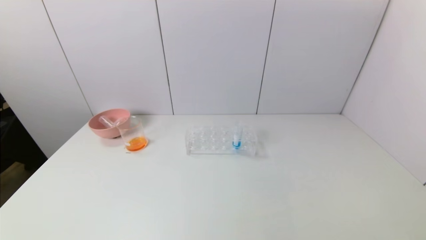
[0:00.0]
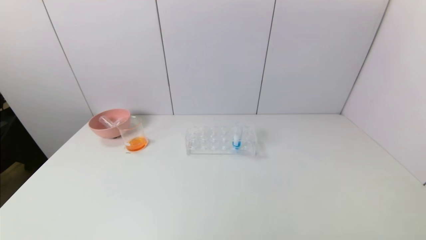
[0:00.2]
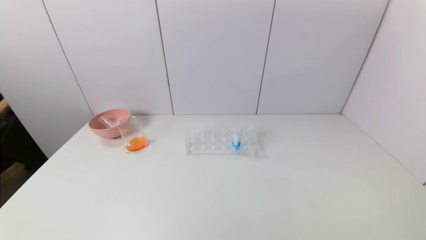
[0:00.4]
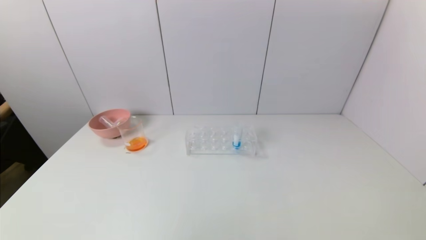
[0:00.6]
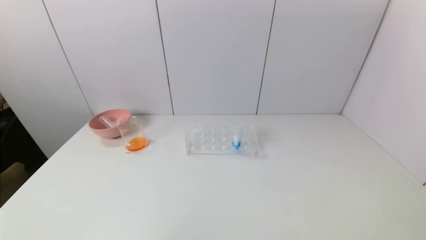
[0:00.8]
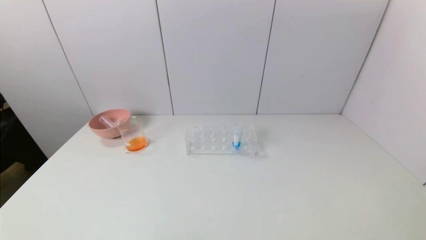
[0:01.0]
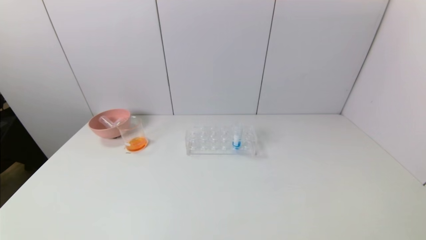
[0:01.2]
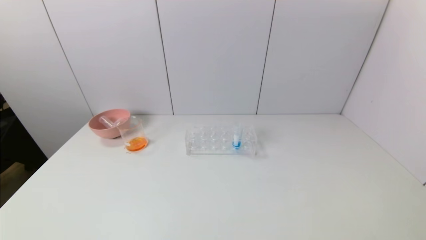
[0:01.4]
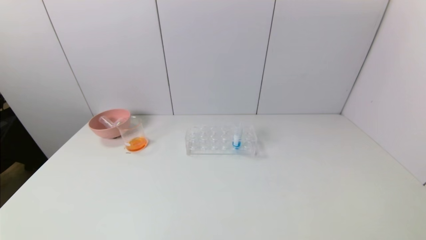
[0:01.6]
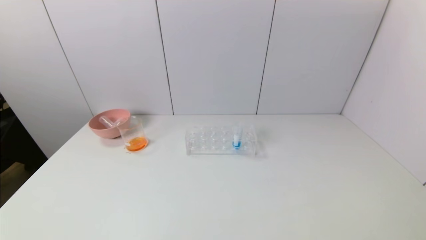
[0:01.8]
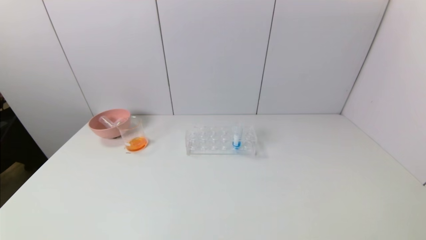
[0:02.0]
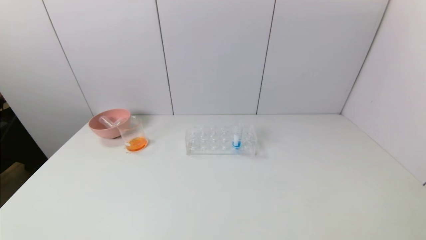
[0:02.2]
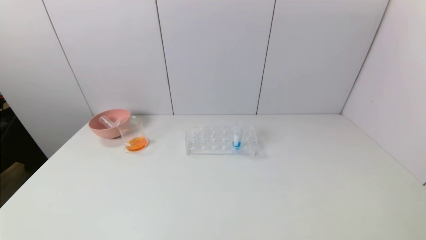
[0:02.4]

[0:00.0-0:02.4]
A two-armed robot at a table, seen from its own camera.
Task of the whole recording: pick up the test tube with yellow pigment and the test tube with red pigment by grippers and pour them into the beaker.
0:01.2 to 0:02.4: The two grippers keep their place.

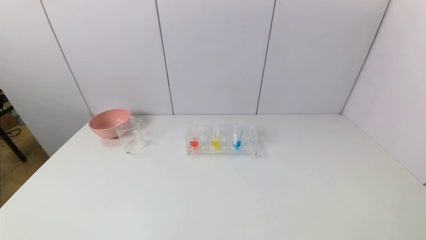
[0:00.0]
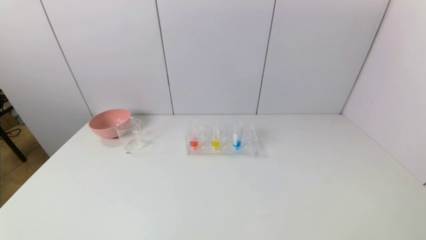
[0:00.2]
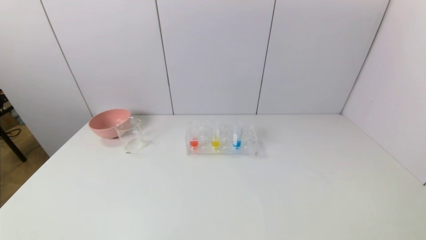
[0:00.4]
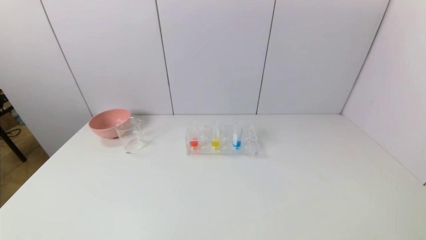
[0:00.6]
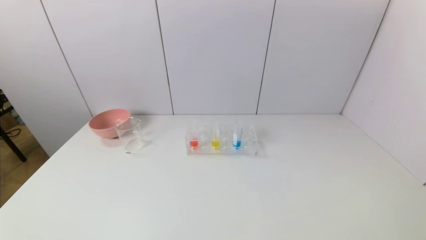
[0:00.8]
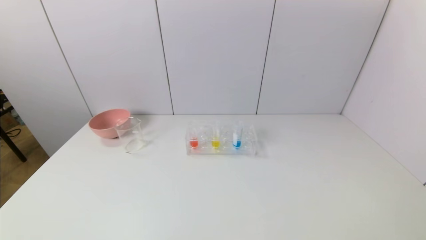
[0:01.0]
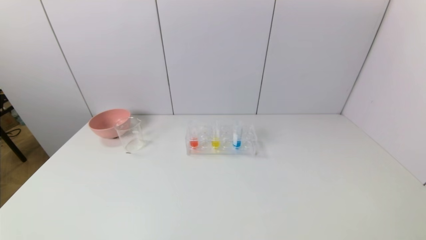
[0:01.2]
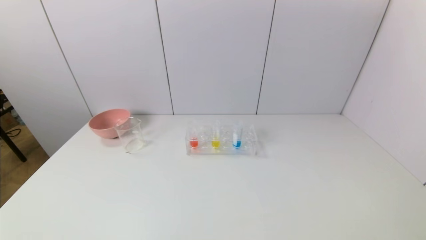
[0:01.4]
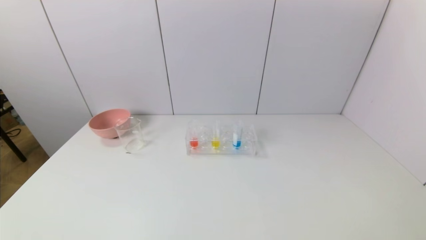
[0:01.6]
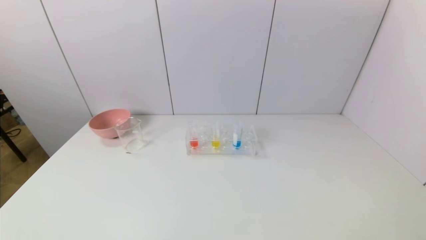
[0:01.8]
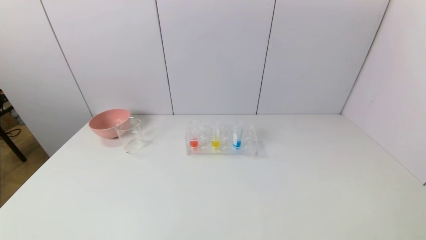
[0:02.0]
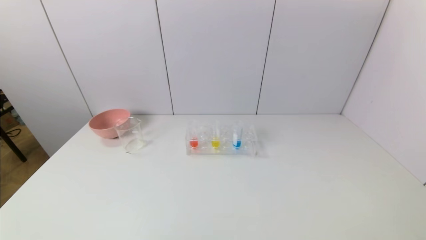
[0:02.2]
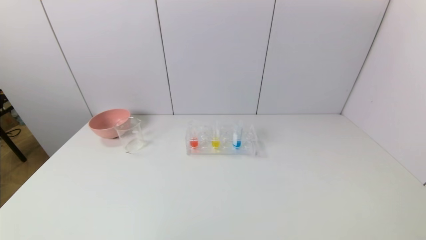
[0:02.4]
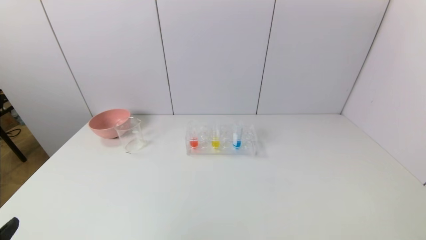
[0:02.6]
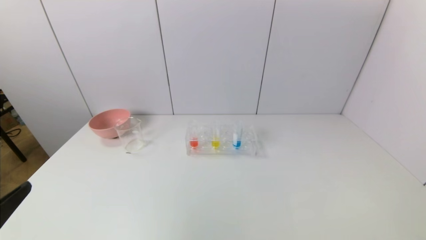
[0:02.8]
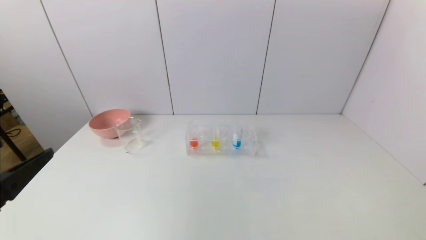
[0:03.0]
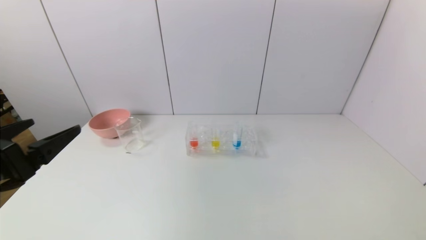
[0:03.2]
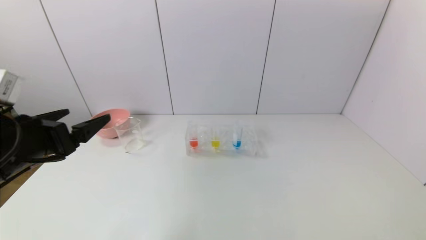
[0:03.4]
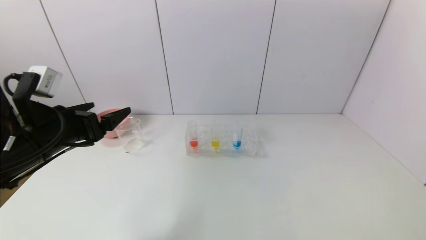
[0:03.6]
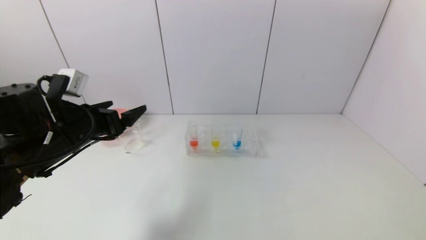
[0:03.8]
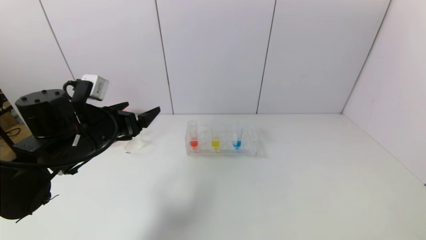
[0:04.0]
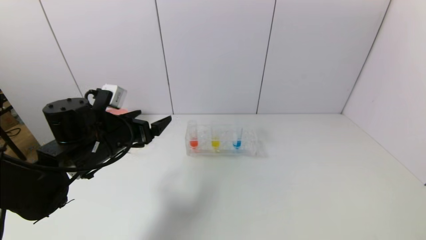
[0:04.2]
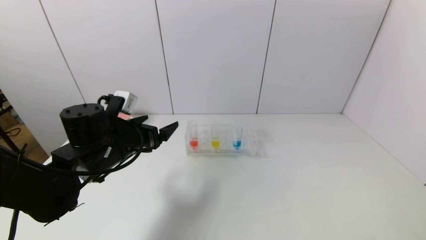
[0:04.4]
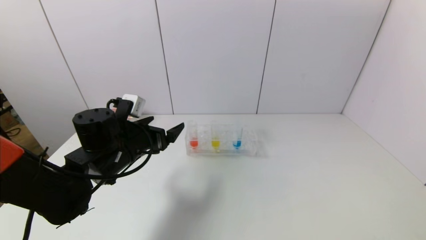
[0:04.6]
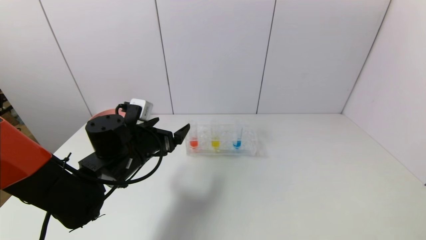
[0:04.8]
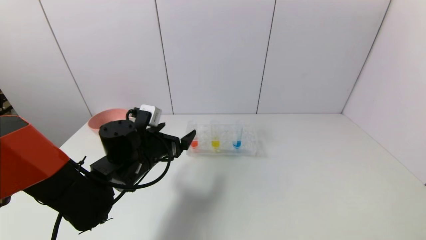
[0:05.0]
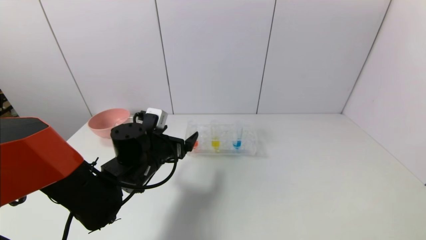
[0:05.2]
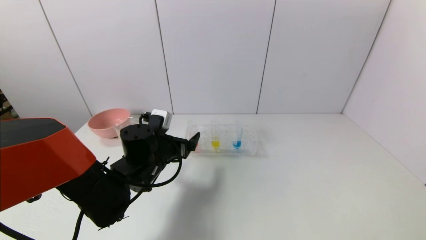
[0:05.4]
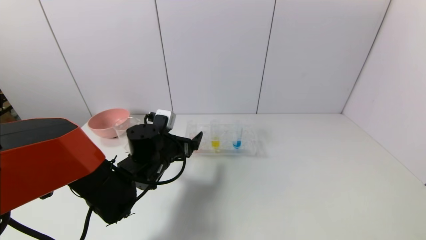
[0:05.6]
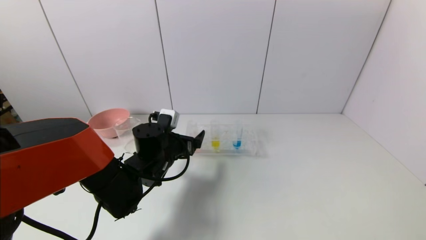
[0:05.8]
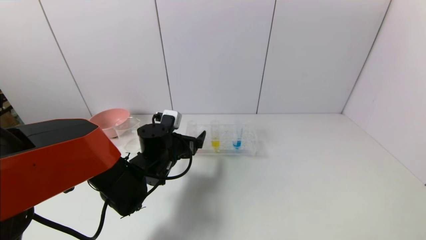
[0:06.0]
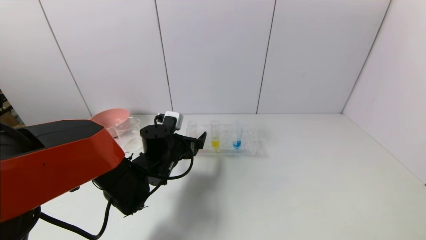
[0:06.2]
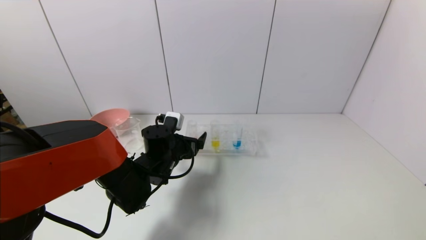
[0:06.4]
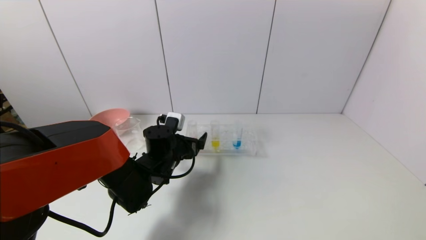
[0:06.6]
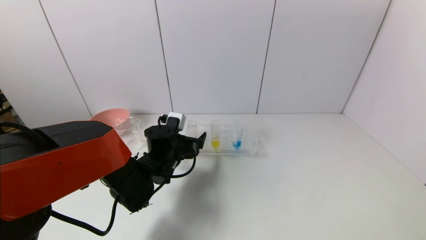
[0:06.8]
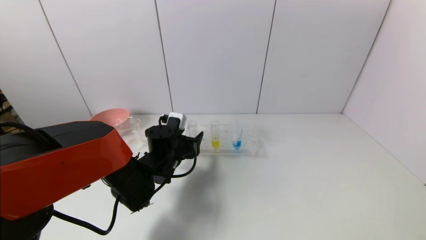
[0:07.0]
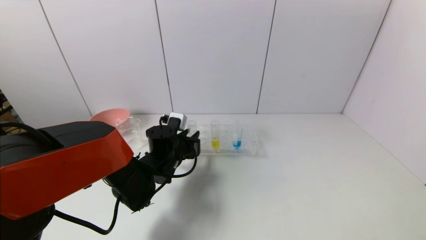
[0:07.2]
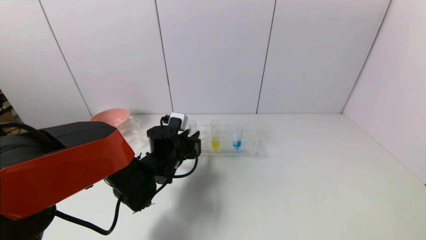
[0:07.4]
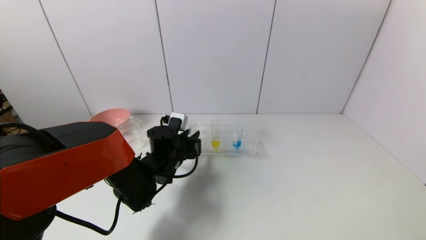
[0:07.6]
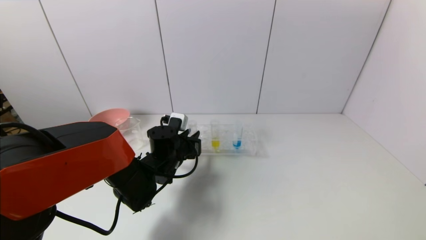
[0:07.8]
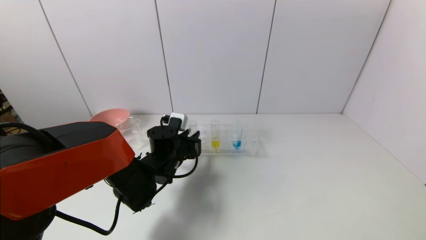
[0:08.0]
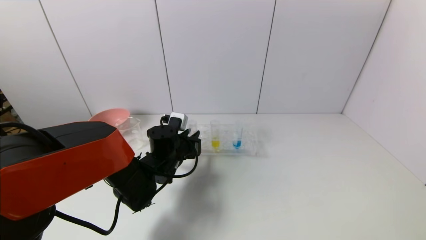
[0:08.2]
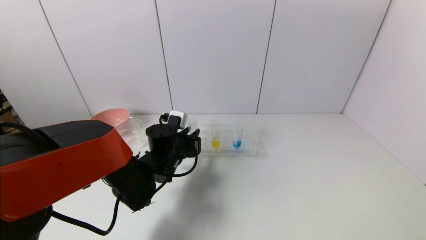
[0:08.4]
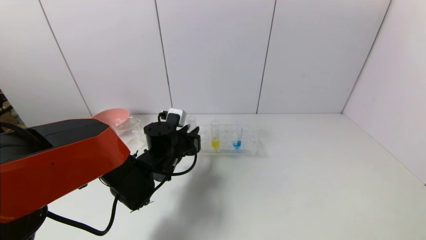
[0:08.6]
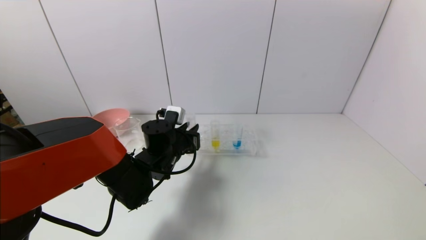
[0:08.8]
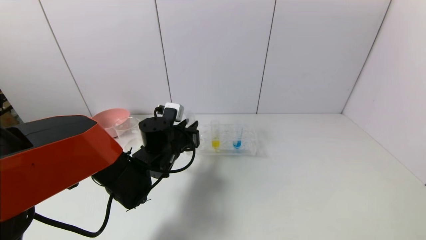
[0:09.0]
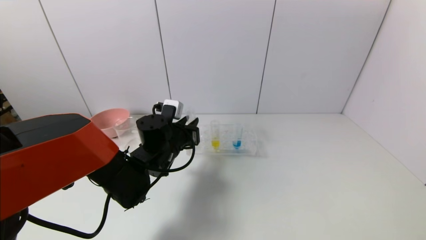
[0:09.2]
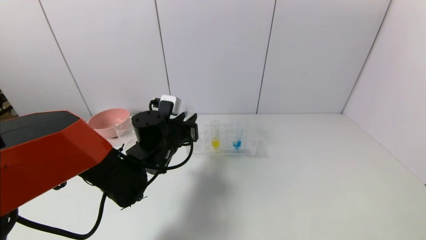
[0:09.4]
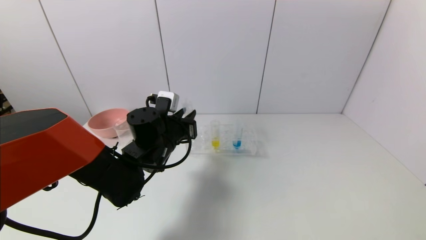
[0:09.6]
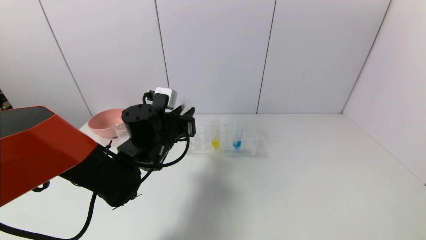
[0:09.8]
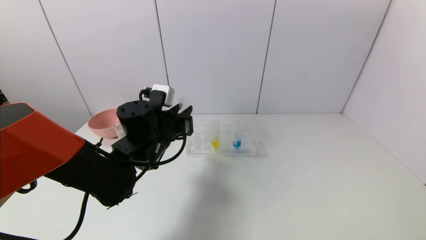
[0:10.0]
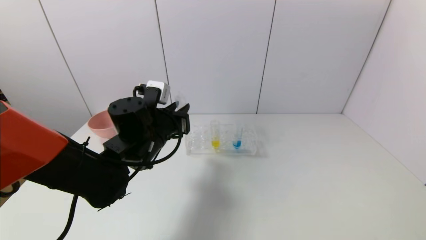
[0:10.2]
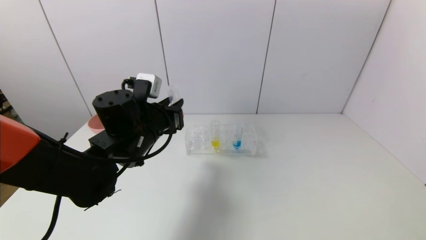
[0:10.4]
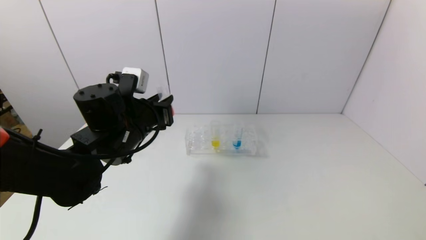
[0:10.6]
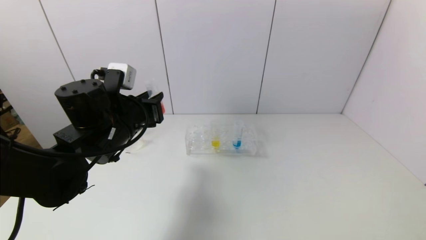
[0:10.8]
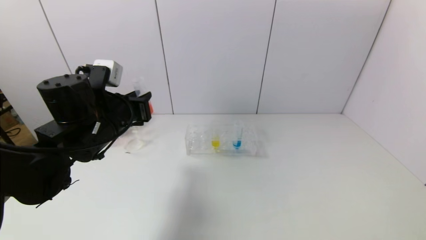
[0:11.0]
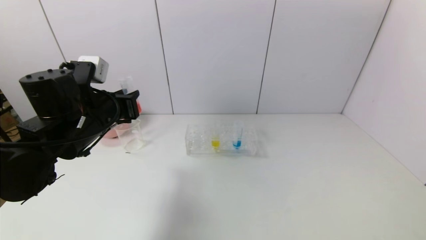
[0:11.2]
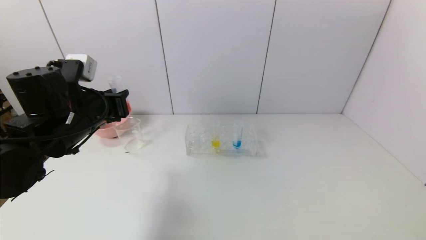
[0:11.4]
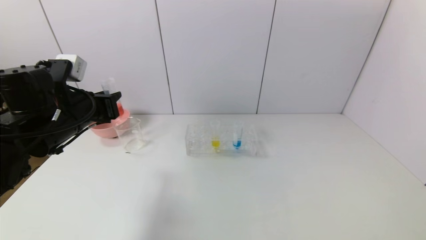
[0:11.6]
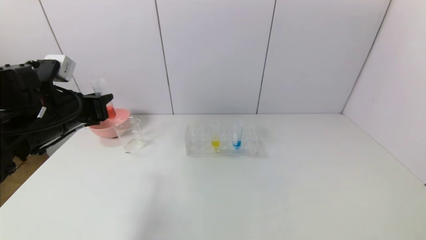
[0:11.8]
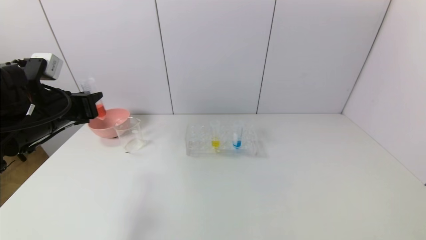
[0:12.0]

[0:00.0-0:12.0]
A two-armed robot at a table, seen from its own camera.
Task of the whole recording: pick up the test tube with yellow pigment and the test tube with red pigment by grippers and pour them into the beaker.
Step, 0:00.0 to 0:07.6: Grasp the red reagent with the left gripper.
0:00.0 to 0:01.6: Both grippers stay about where they are.
0:01.6 to 0:03.0: The left gripper heads upward and forward, covering roughly 20 cm.
0:03.0 to 0:04.4: The left gripper heads forward and to the right, covering roughly 20 cm.
0:04.4 to 0:06.0: The left gripper shifts about 10 cm to the right and downward.
0:06.0 to 0:07.6: The left gripper closes up.
0:07.6 to 0:09.0: The grippers move only a little.
0:09.0 to 0:10.4: The left gripper moves upward, some 10 cm.
0:10.4 to 0:12.0: The left gripper shifts approximately 15 cm to the left.

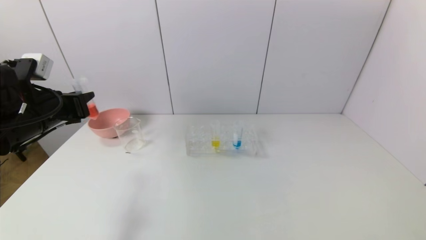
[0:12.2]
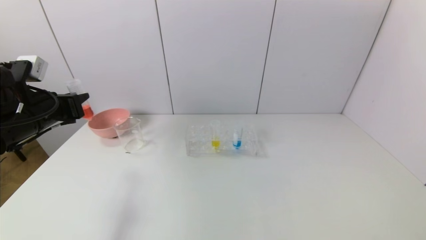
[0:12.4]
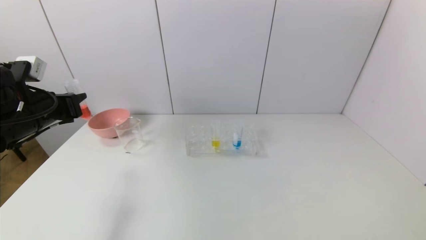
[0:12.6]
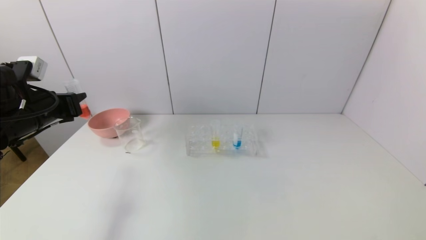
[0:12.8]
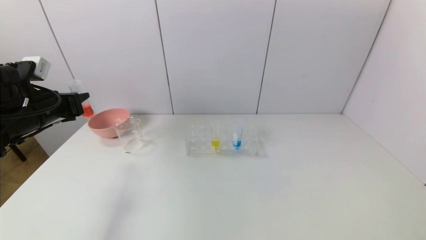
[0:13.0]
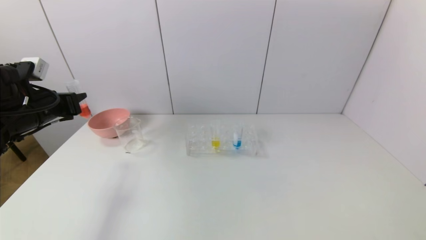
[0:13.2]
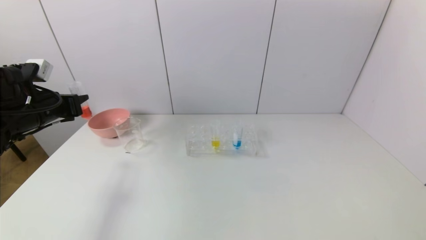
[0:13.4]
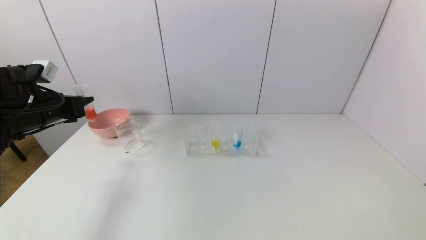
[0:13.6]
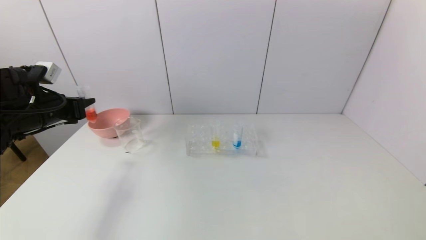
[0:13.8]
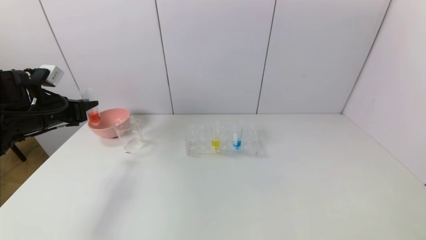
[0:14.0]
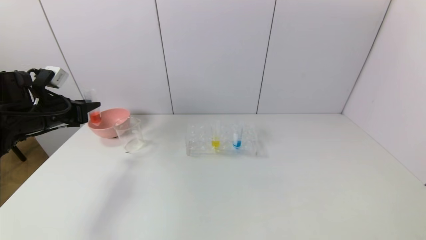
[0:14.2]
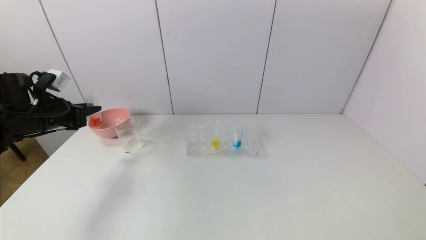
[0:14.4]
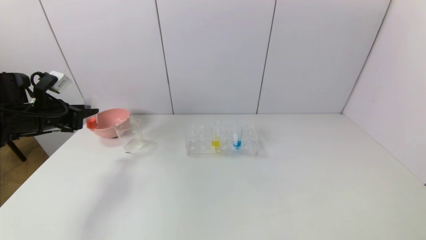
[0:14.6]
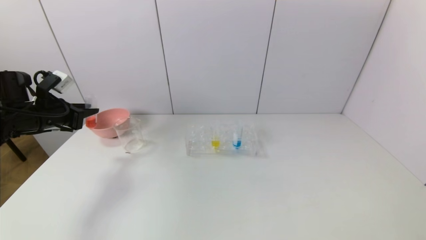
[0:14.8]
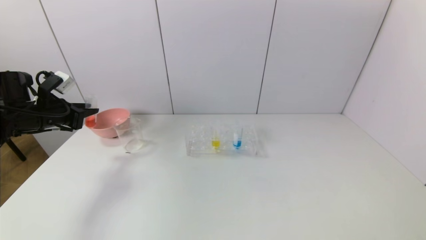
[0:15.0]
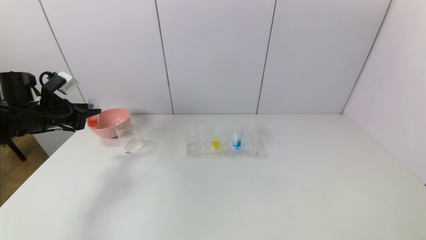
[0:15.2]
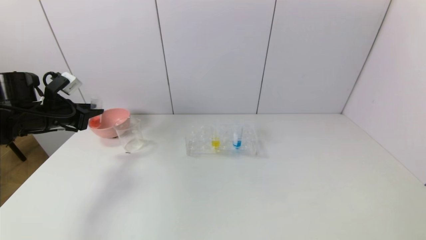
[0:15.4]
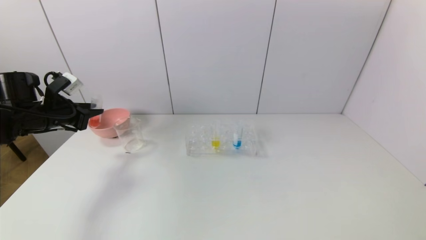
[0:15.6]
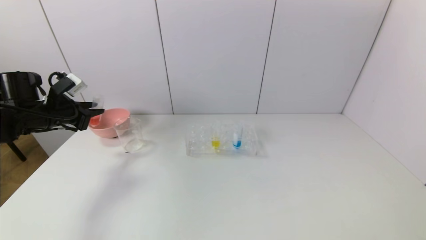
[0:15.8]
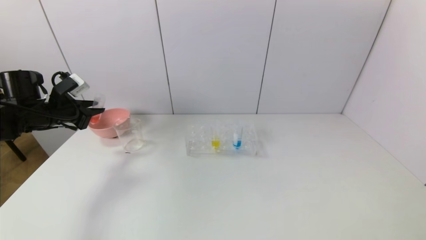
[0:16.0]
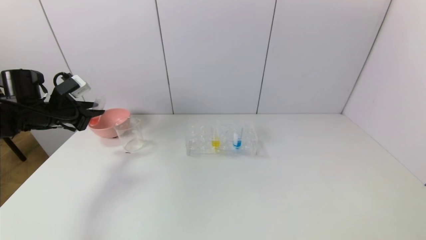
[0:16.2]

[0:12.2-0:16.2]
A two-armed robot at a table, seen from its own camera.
Task of the whole recording: pick up the test tube with yellow pigment and the test tube with red pigment by grippers and pour them into the beaker.
0:12.2 to 0:13.6: The left gripper changes place by about 5 cm.
0:14.8 to 0:16.2: There are only small adjustments of the grippers.
